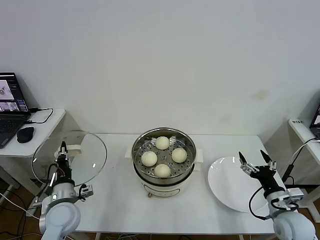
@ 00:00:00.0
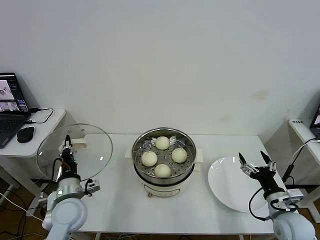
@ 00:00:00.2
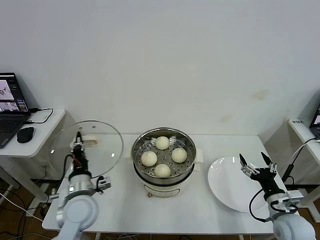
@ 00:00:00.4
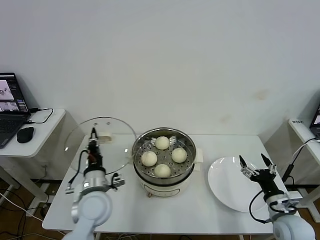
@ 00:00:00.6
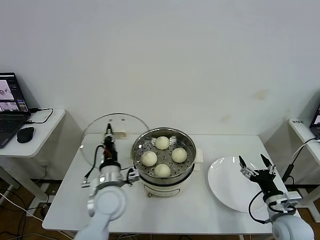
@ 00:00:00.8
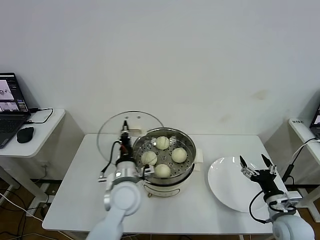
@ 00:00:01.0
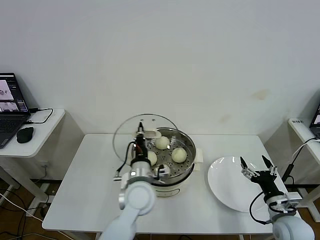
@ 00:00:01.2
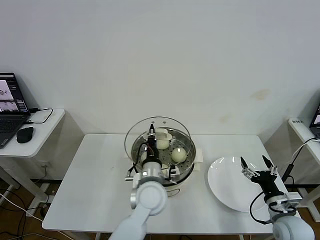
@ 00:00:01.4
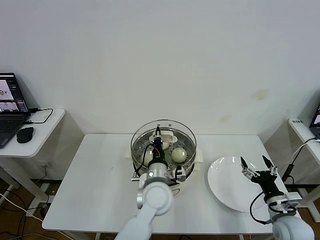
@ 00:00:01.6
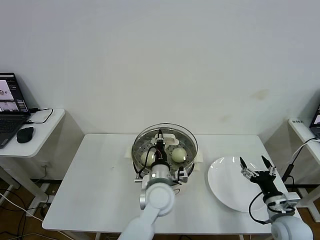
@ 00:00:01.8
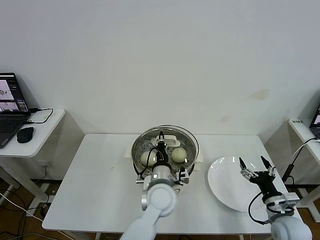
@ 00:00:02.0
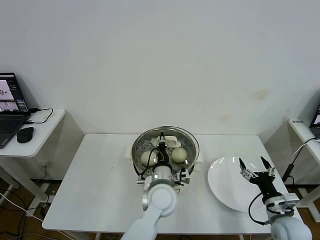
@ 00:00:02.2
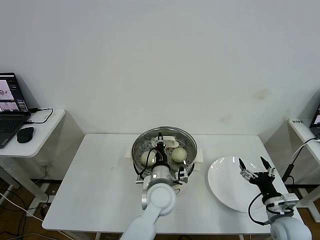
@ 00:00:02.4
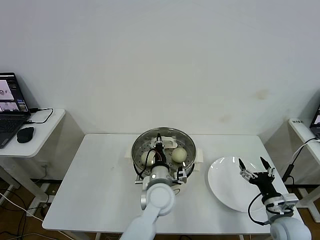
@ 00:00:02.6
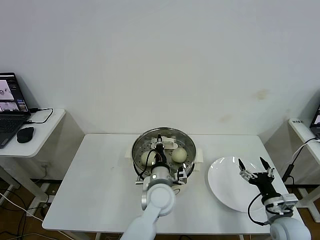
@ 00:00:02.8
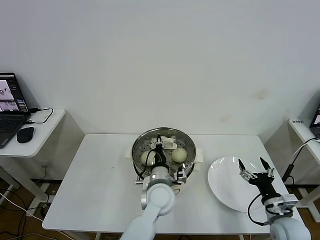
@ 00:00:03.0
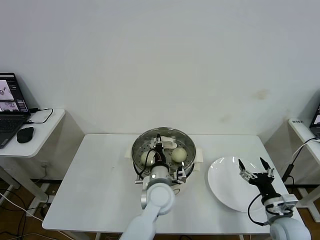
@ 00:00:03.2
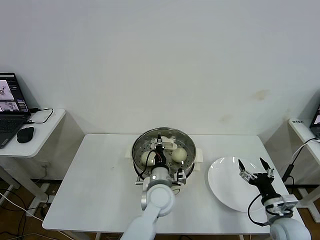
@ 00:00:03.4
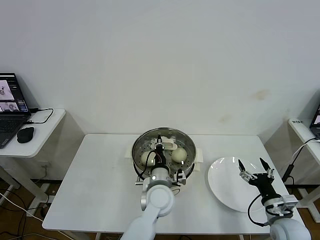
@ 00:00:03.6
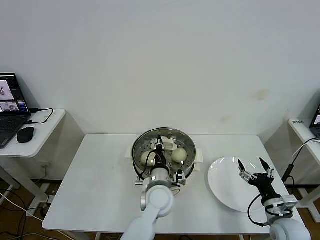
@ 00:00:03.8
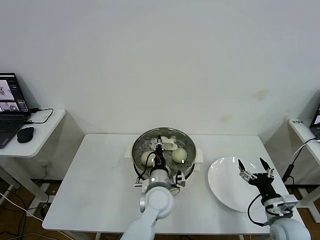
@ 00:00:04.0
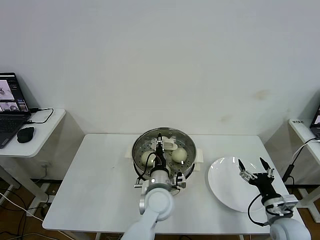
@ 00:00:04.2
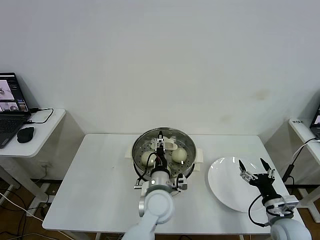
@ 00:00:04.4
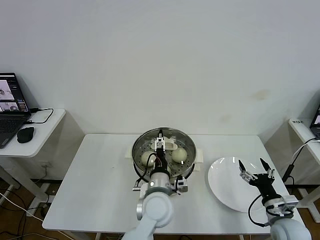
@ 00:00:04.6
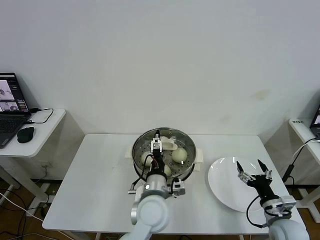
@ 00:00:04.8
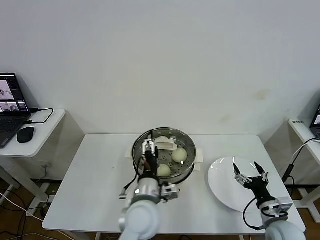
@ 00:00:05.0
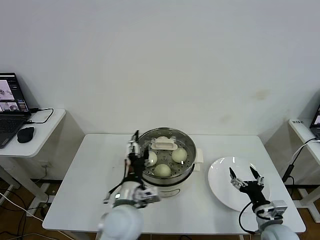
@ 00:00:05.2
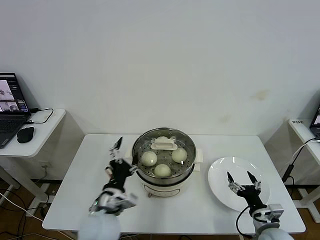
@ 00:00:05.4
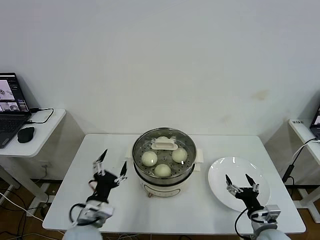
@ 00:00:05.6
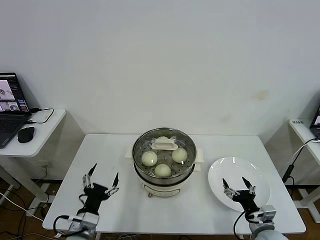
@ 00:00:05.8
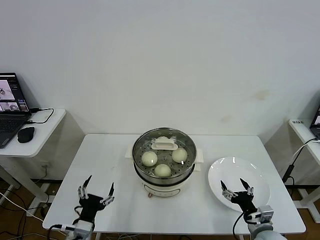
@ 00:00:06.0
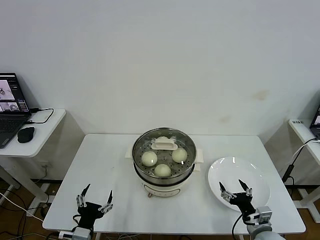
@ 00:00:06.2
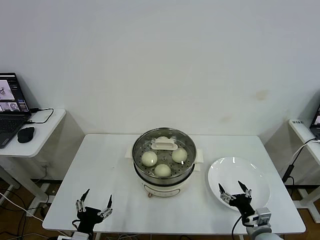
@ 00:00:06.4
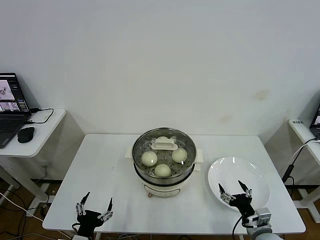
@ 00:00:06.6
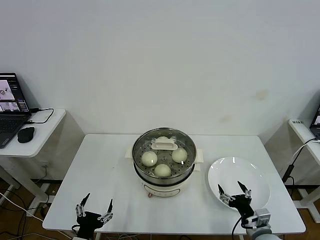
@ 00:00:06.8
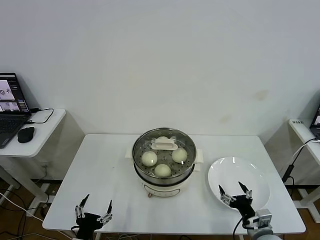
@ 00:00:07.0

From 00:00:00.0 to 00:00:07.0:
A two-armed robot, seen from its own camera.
Step, from 00:00:00.0 to 00:00:04.4: Place the pot lid on the steamer with left gripper.
From 00:00:00.0 to 00:00:01.4: The left gripper heads to the right, covering roughly 25 cm.
From 00:00:01.4 to 00:00:02.8: The grippers move only a little.
From 00:00:02.8 to 00:00:04.2: The left gripper opens.
From 00:00:04.2 to 00:00:05.6: The left gripper goes approximately 20 cm to the left and backward, and opens. Meanwhile the right gripper moves roughly 5 cm.
From 00:00:05.6 to 00:00:07.0: The left gripper is displaced backward, downward and to the left by about 15 cm.
